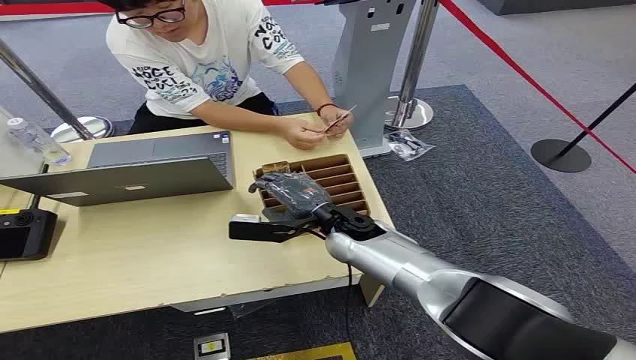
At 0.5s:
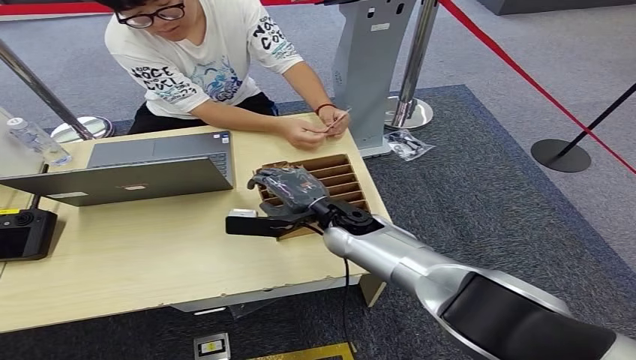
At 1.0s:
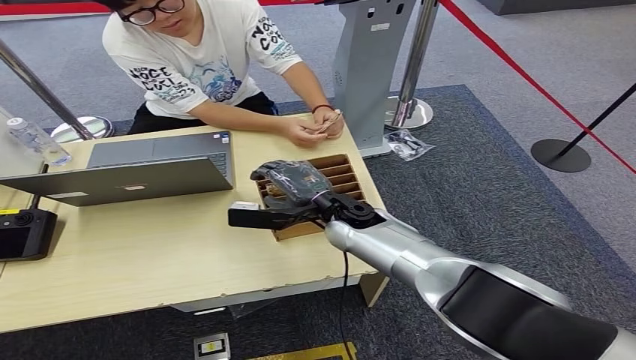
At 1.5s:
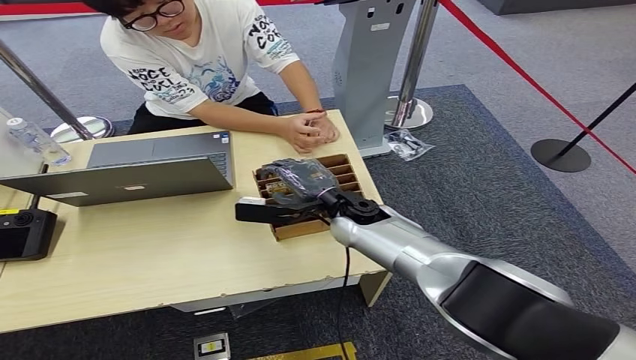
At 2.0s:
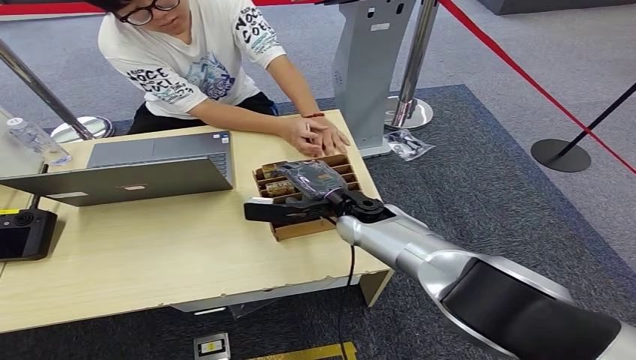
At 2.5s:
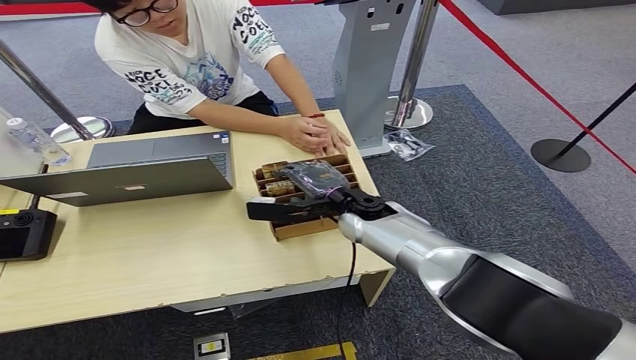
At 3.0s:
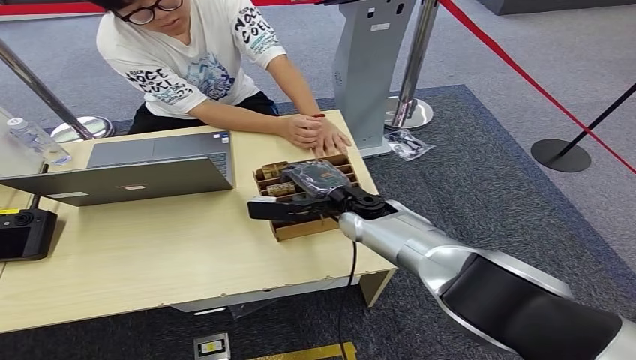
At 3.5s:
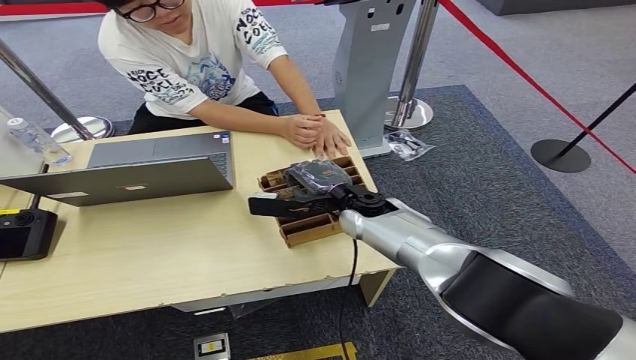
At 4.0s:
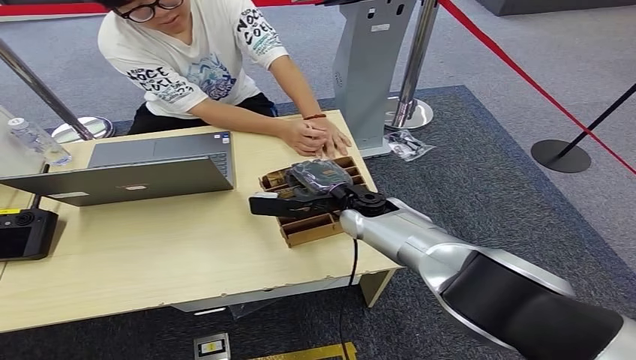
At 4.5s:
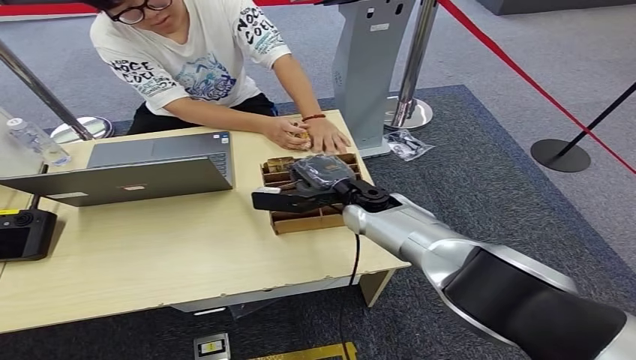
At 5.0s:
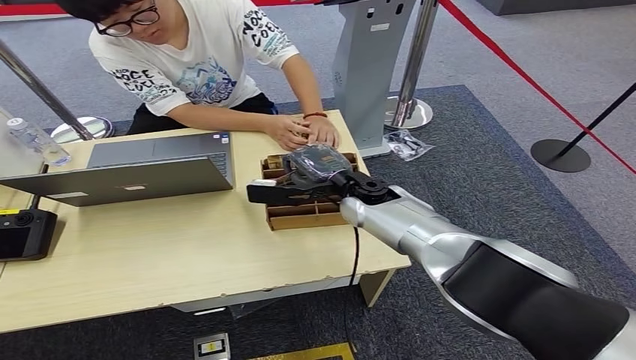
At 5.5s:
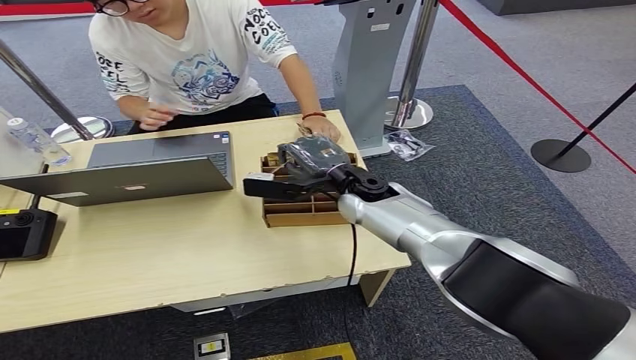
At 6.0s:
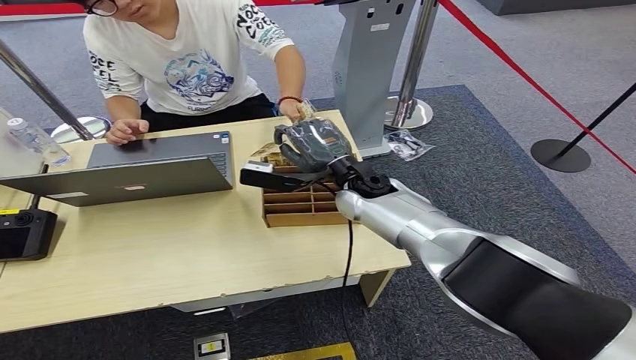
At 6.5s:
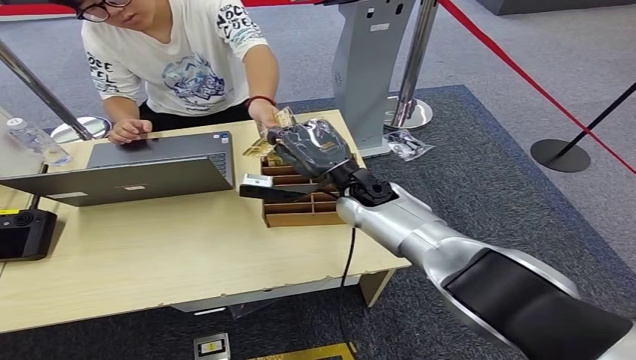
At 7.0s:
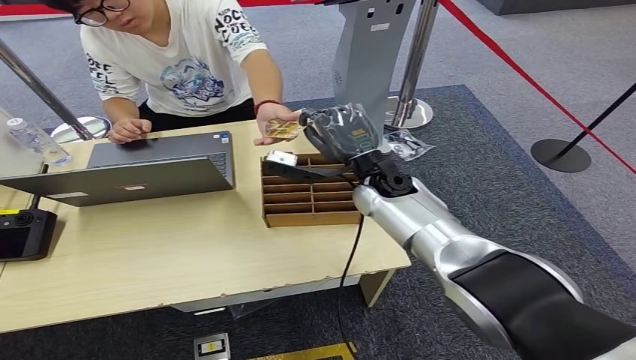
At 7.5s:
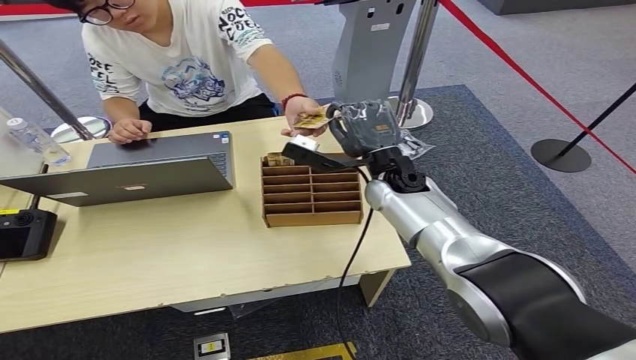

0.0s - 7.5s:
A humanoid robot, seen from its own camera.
Step, 0.0s - 5.0s: Pick up the key card from the card box.
Step, 5.5s - 7.5s: Hand the key card to the target.
2.0s - 5.5s: The hands make only small movements.
5.5s - 7.5s: The right hand moves to the right, approximately 5 cm.
